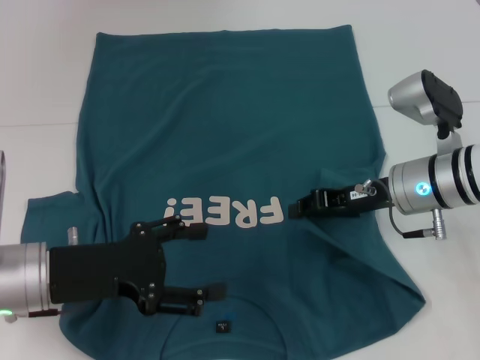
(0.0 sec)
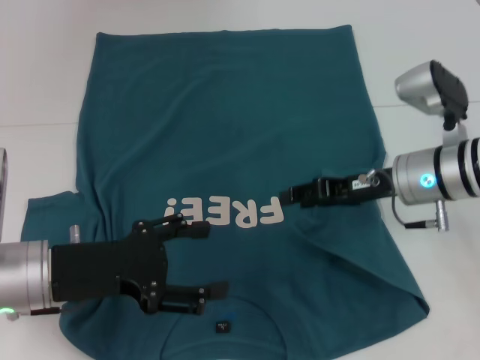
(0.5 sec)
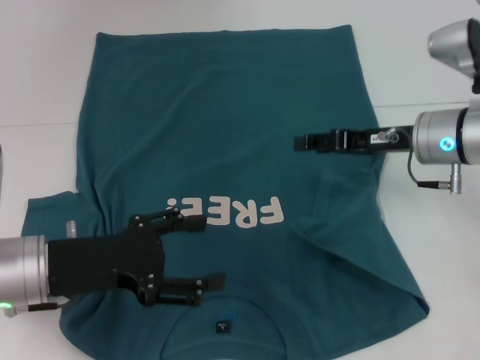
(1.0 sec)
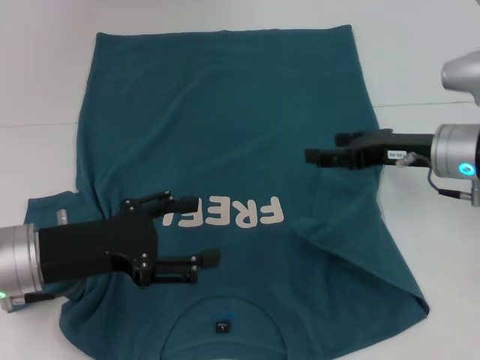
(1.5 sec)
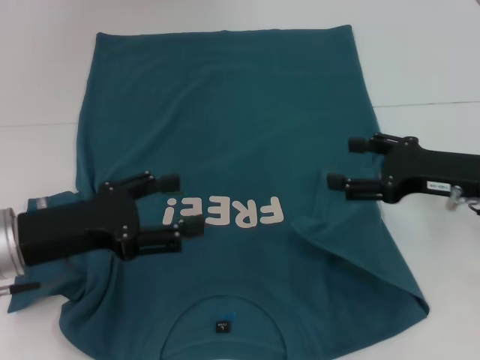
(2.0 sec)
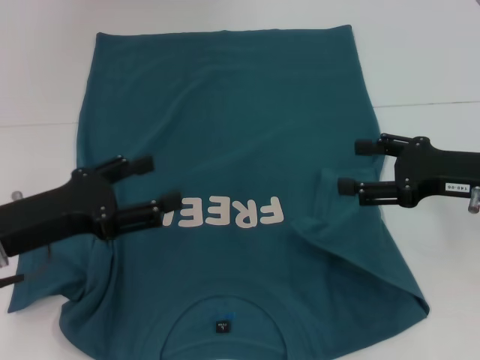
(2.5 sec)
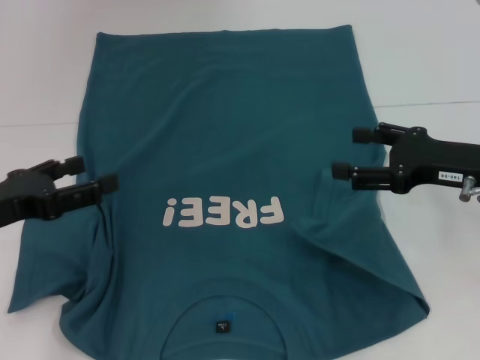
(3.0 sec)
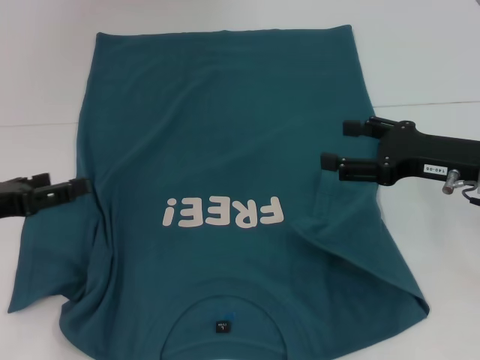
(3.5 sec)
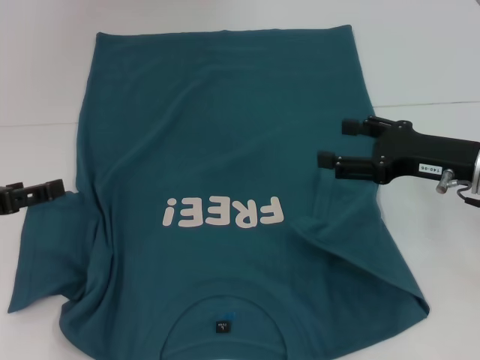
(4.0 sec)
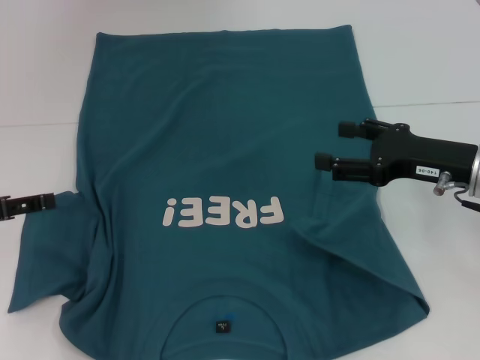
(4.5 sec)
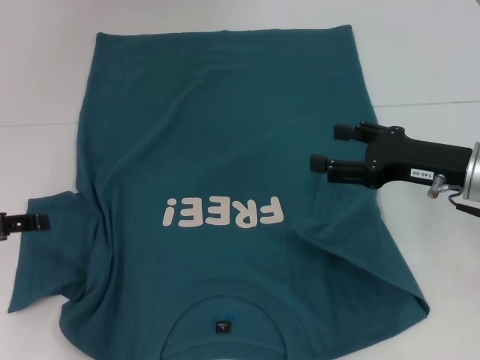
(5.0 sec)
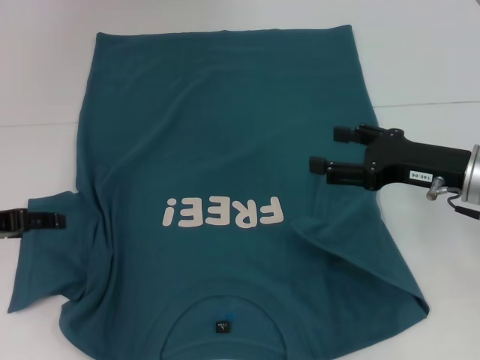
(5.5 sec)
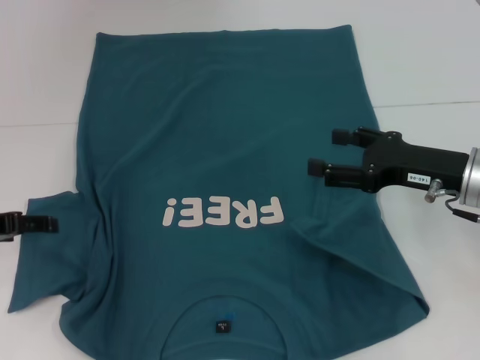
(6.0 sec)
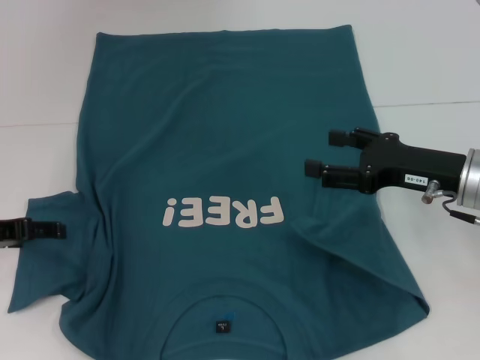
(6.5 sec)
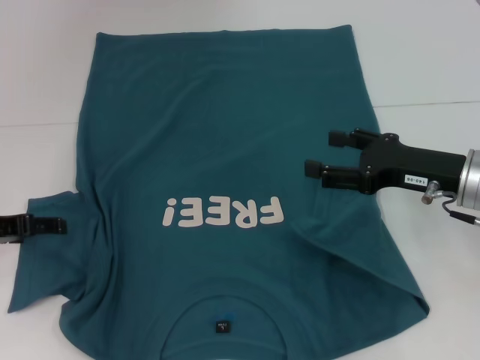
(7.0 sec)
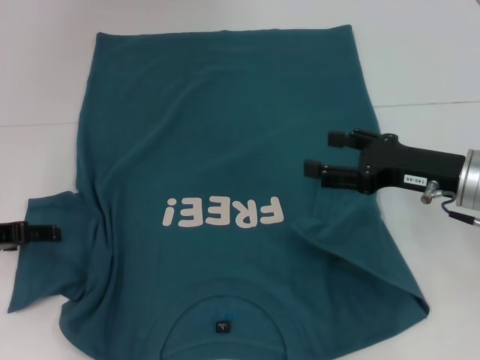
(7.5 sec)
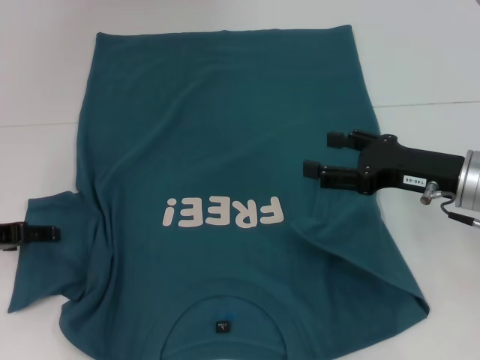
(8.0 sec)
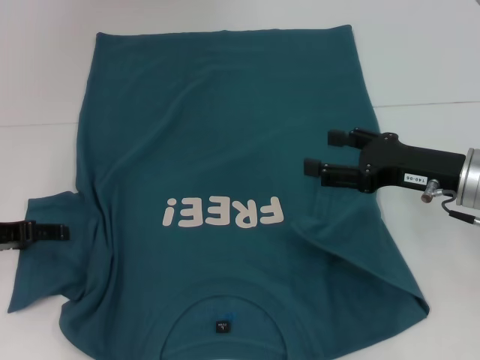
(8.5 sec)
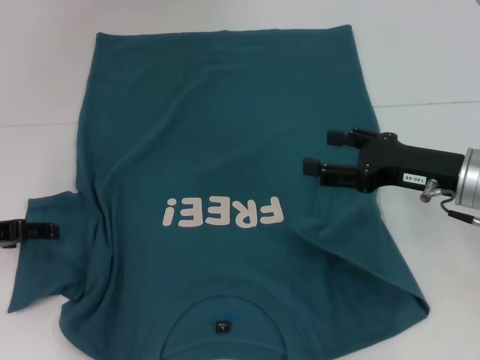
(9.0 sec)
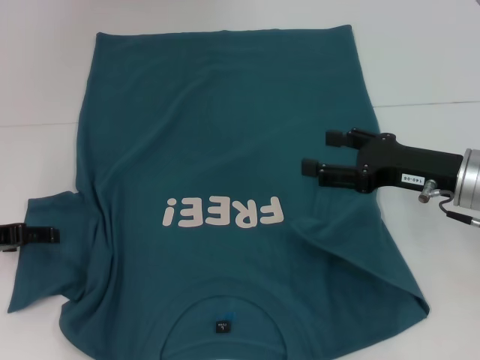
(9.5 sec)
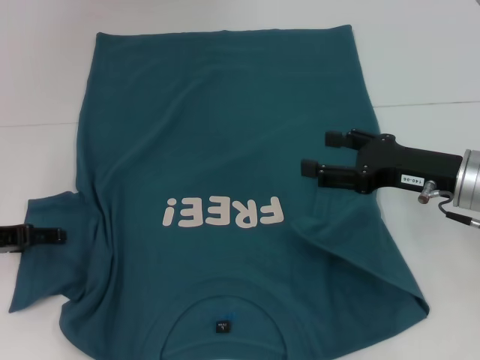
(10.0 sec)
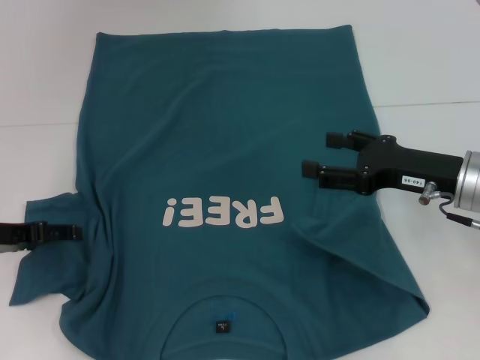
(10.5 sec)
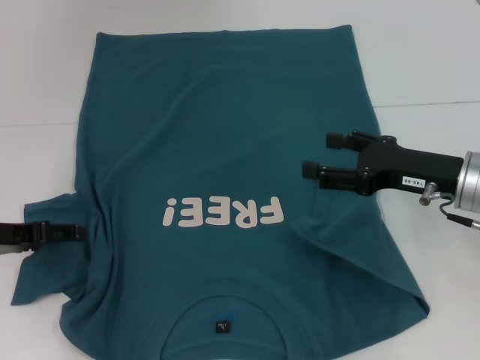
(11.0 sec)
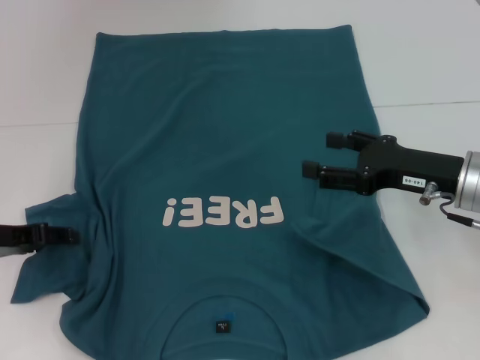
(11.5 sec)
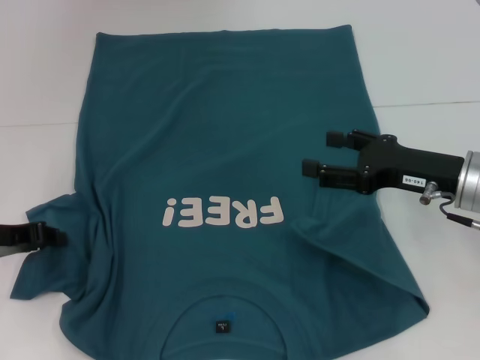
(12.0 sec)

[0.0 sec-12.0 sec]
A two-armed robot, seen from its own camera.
0.0 sec to 2.0 sec: The right gripper goes roughly 5 cm to the right, and opens up.
2.0 sec to 4.0 sec: The left gripper shifts approximately 10 cm to the left.
6.0 sec to 8.0 sec: The grippers stay close to where they were, moving slightly.
8.0 sec to 10.0 sec: Both grippers stay put.
10.0 sec to 12.0 sec: The left gripper closes up.

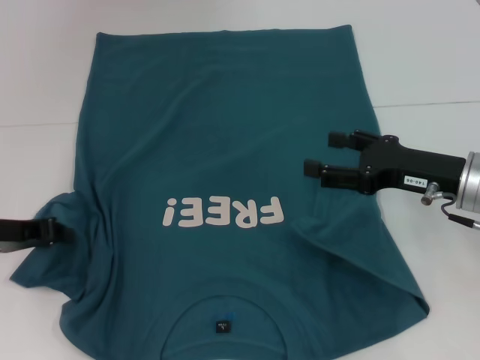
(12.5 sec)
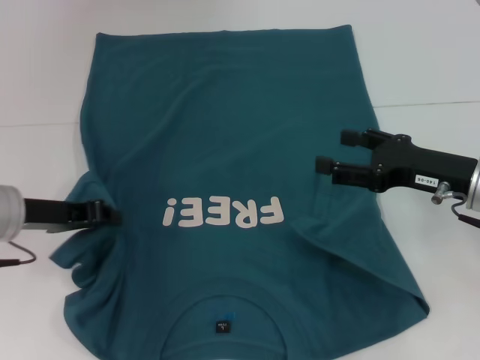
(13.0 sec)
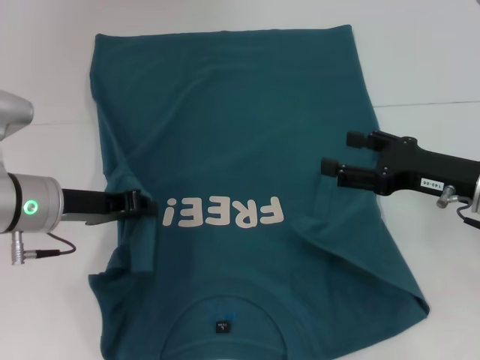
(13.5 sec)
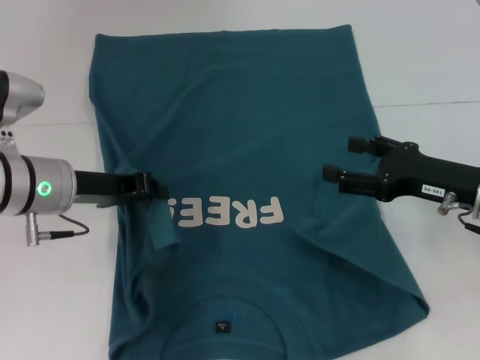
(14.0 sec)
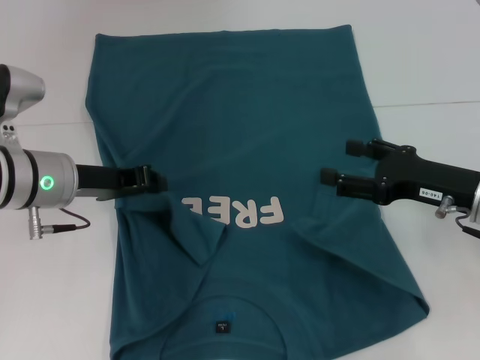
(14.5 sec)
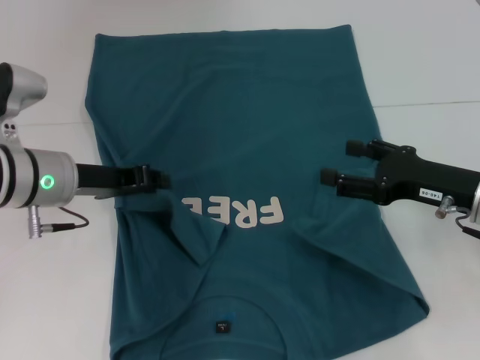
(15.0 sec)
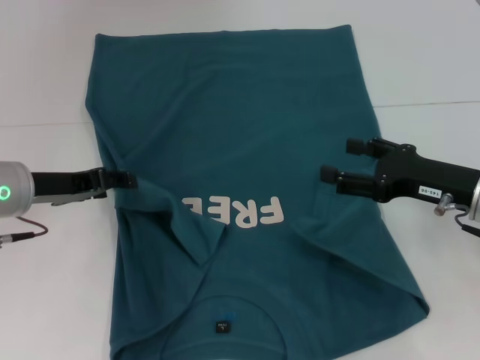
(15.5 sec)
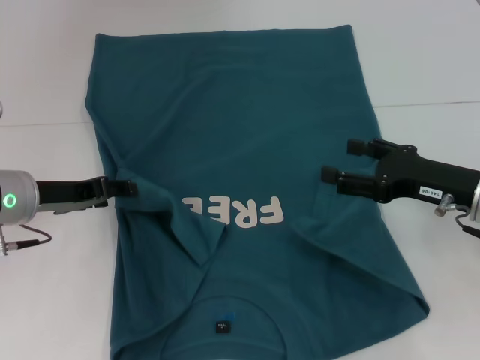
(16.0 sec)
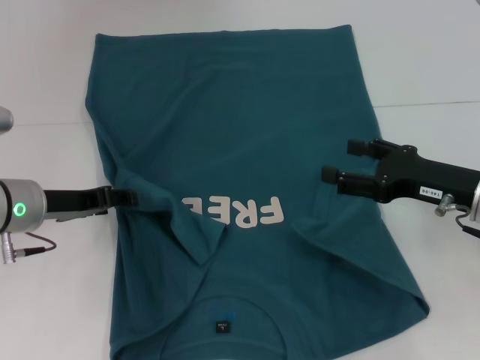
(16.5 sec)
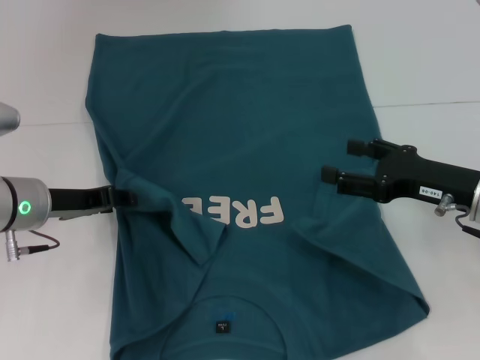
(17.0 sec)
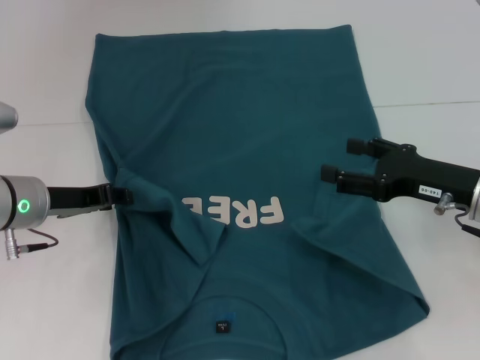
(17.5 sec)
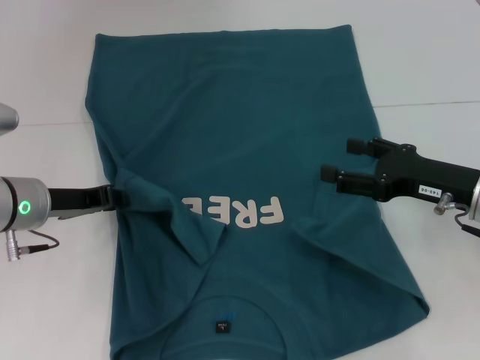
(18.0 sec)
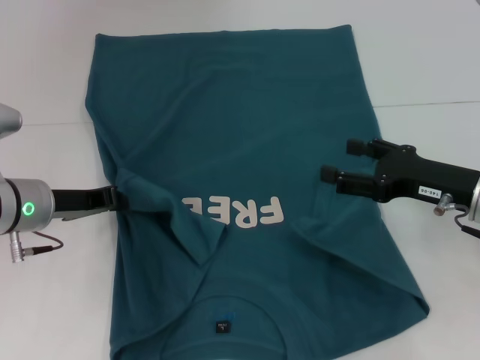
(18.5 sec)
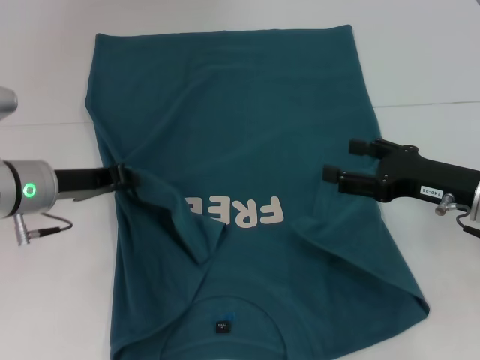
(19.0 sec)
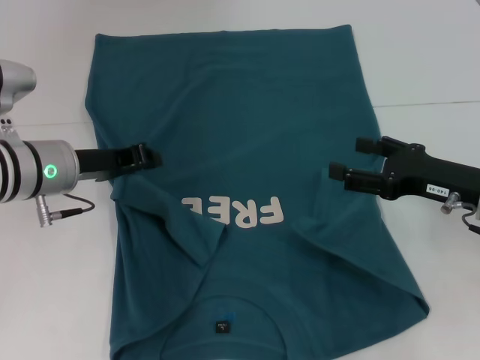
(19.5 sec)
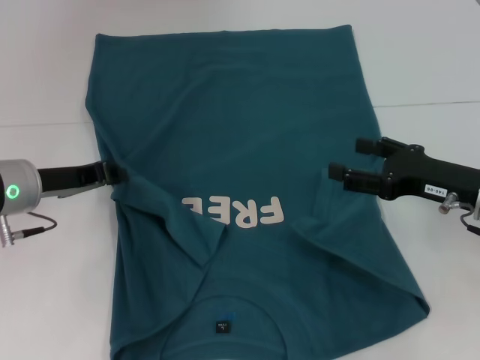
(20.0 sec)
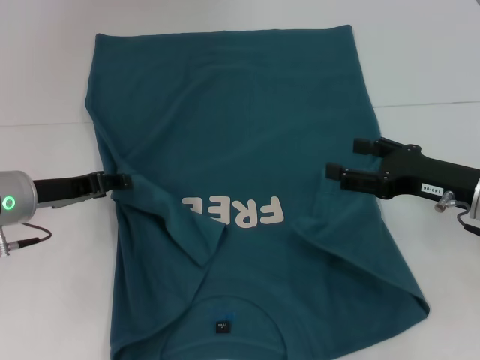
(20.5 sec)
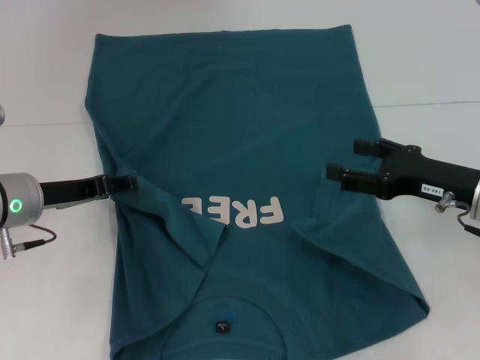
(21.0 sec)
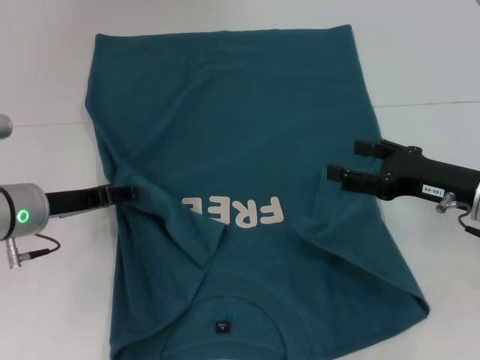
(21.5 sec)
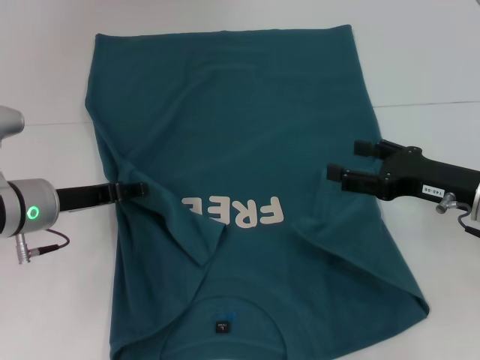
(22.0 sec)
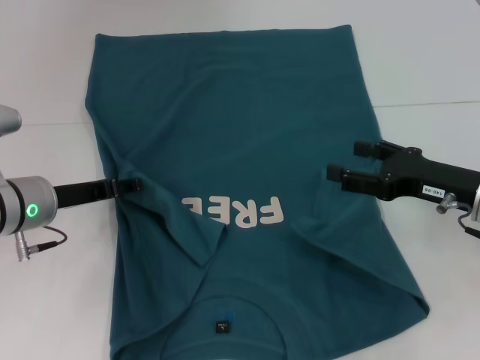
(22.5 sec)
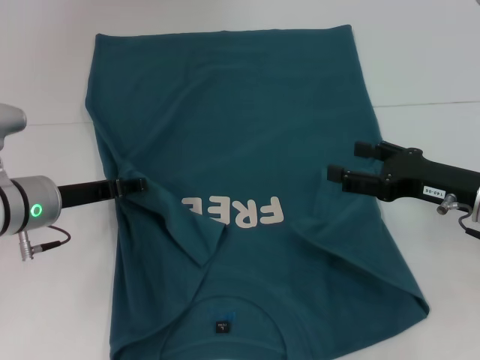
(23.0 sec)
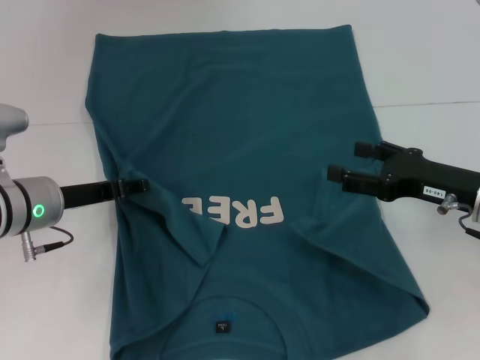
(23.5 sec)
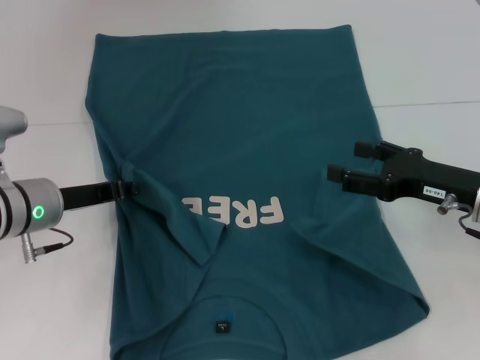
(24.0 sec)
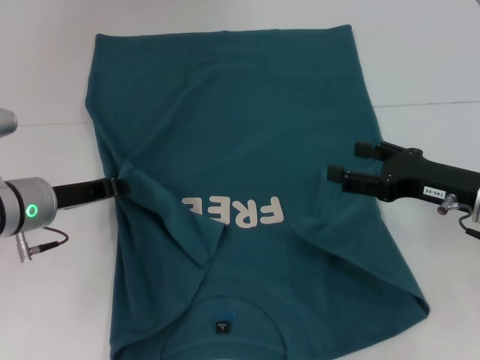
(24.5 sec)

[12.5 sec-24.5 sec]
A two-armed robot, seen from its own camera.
12.5 sec to 14.5 sec: The left gripper moves to the right, roughly 10 cm.
14.5 sec to 16.5 sec: The left gripper opens up.
16.5 sec to 18.5 sec: The left gripper closes.
18.5 sec to 22.5 sec: The grippers stay close to where they were, moving slightly.

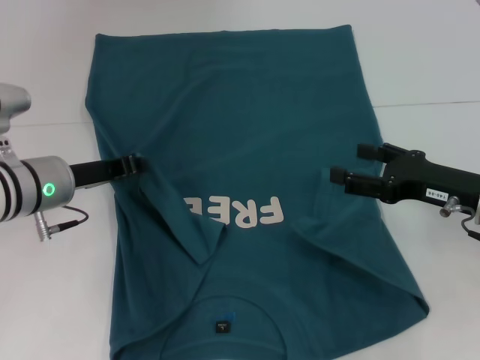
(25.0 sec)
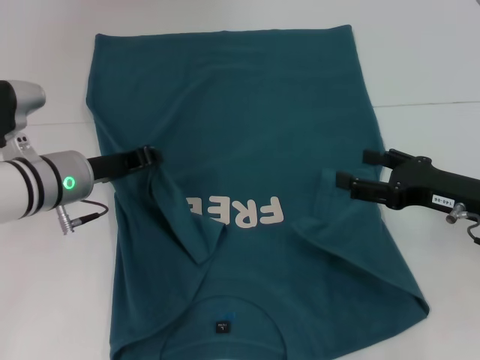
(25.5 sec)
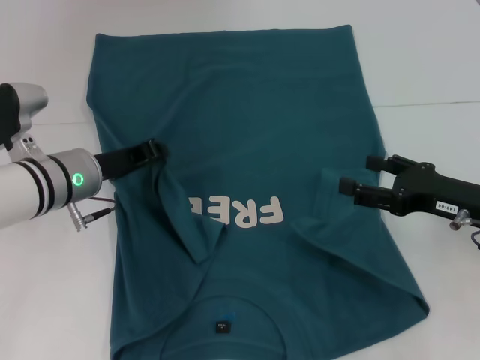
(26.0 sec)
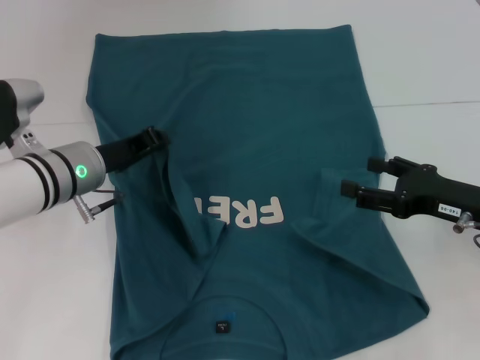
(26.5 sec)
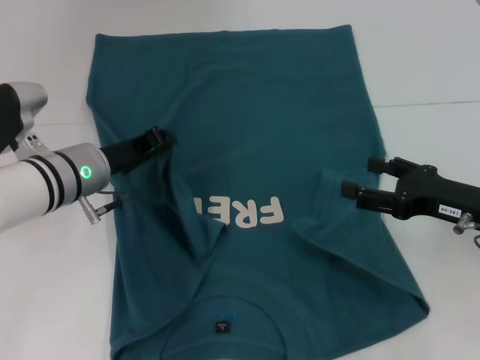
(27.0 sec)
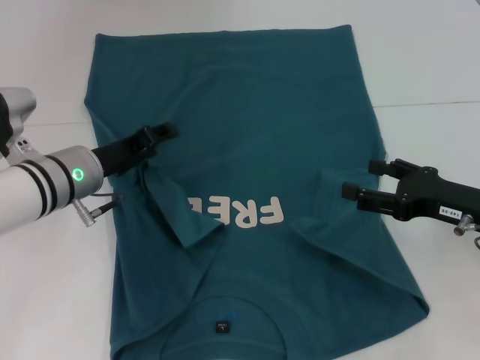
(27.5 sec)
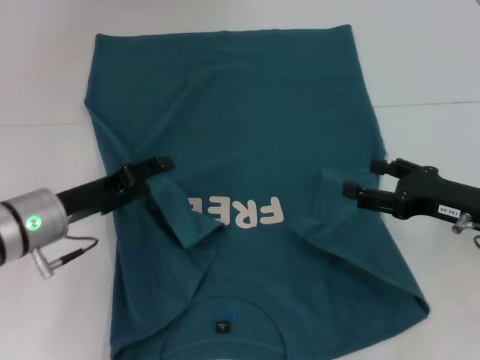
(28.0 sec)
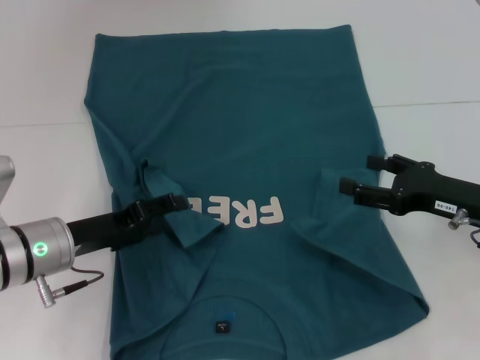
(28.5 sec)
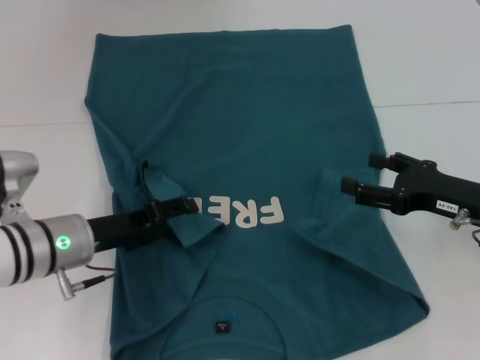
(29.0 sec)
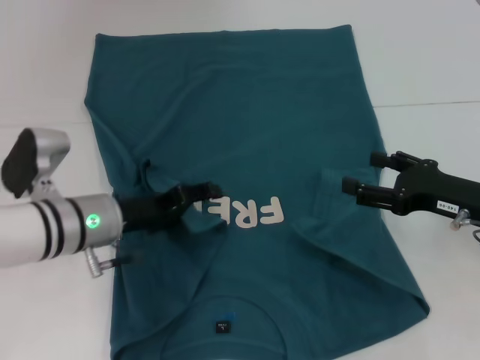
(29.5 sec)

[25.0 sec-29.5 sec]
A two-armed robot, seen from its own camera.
25.0 sec to 27.0 sec: The grippers move only a little.
27.0 sec to 29.5 sec: The left gripper opens its fingers.
